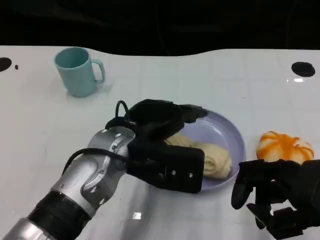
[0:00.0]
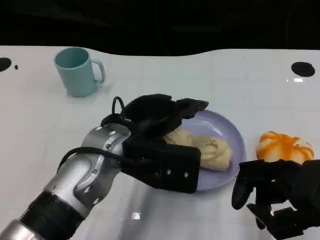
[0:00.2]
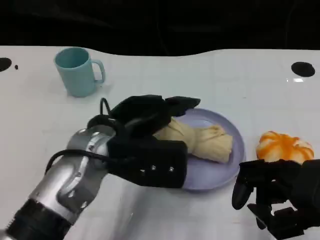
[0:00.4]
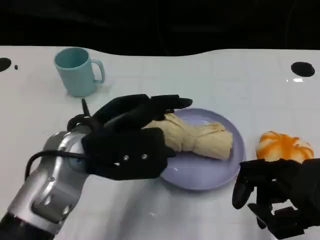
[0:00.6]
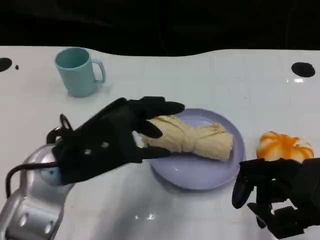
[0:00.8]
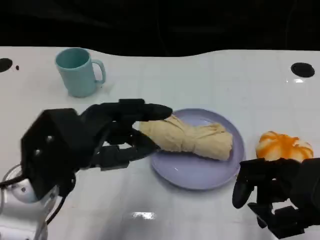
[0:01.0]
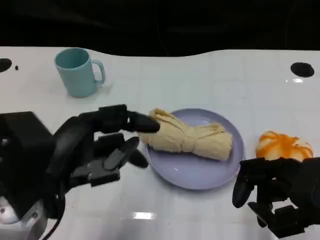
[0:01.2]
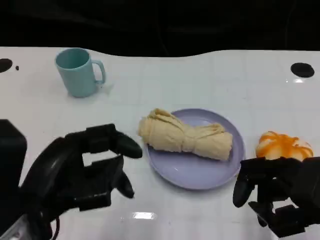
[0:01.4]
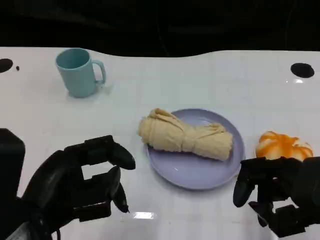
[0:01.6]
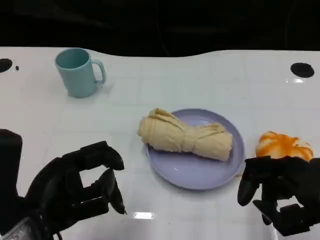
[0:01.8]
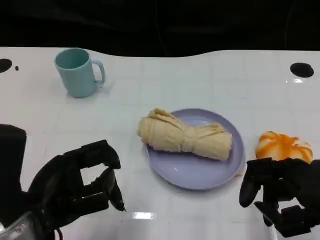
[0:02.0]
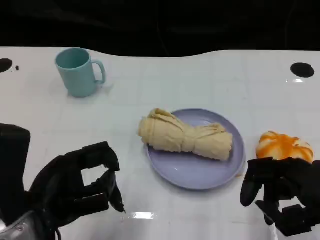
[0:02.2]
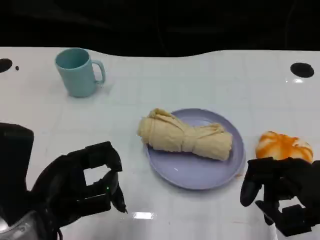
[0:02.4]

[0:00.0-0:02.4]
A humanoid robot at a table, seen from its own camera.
Task of the whole recording: Grasp the towel on the left side of the plate with the left hand and place it into the plate.
0:00.0 to 0:01.2: The left hand shifts some 15 cm to the left and backward.

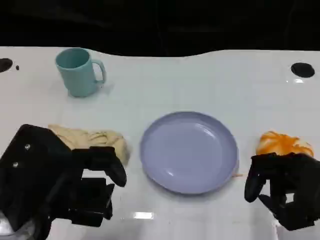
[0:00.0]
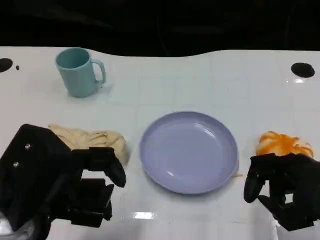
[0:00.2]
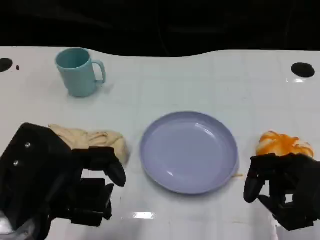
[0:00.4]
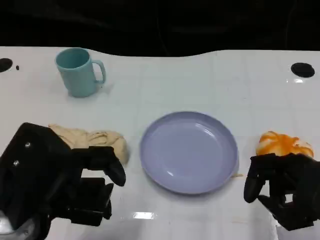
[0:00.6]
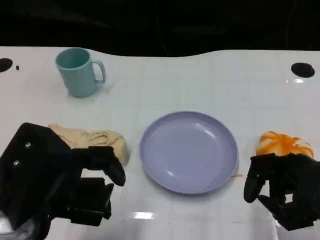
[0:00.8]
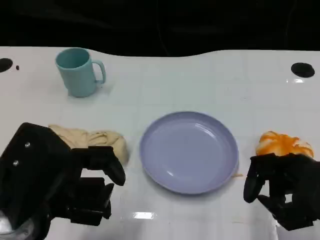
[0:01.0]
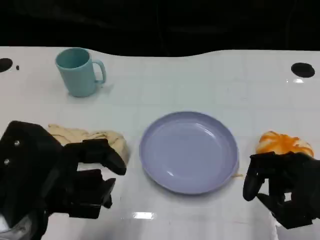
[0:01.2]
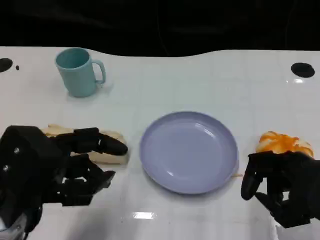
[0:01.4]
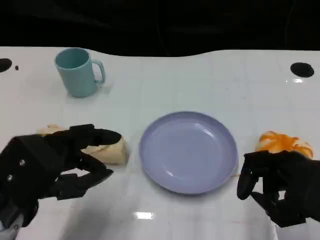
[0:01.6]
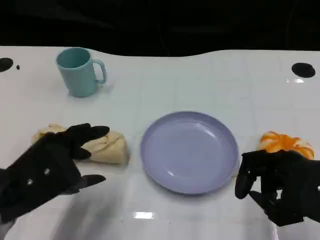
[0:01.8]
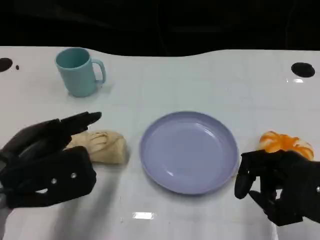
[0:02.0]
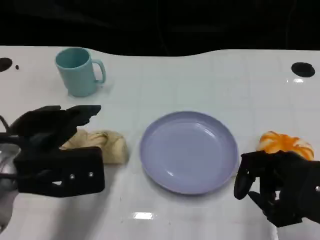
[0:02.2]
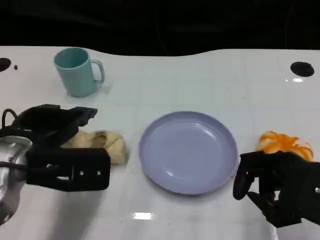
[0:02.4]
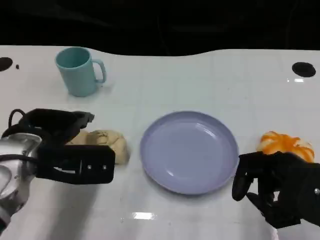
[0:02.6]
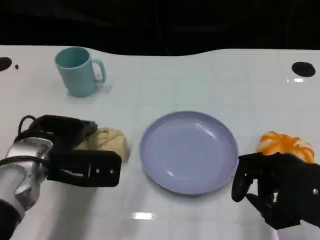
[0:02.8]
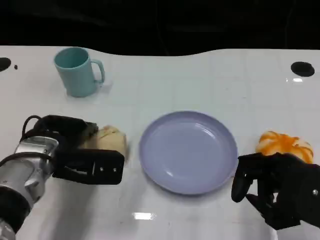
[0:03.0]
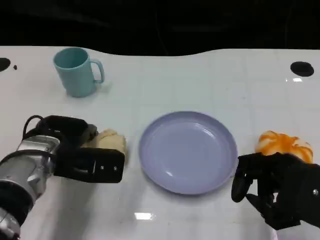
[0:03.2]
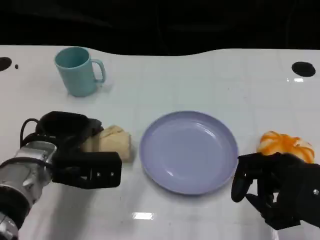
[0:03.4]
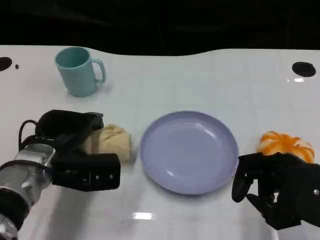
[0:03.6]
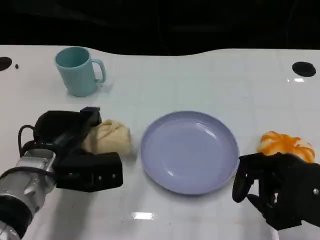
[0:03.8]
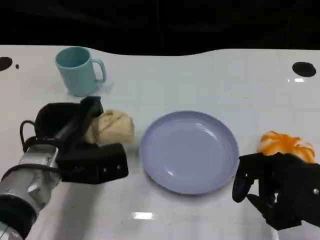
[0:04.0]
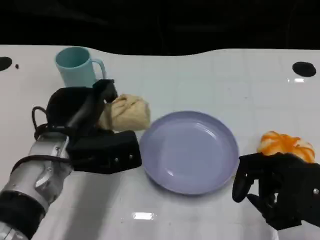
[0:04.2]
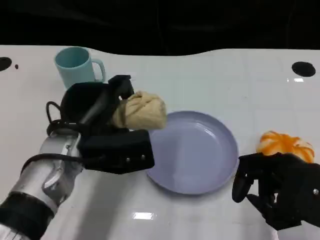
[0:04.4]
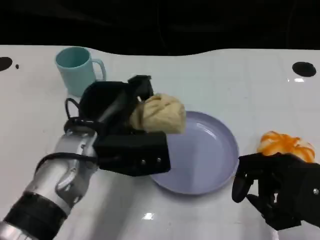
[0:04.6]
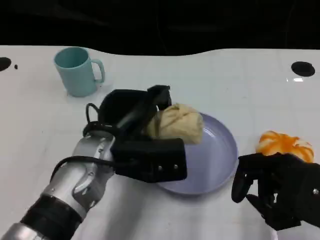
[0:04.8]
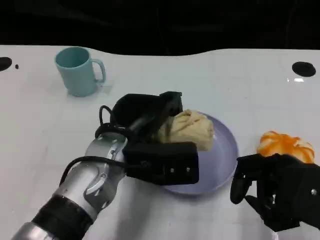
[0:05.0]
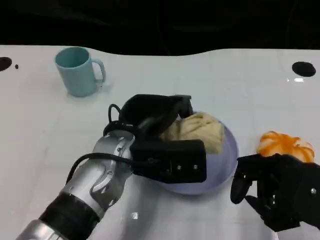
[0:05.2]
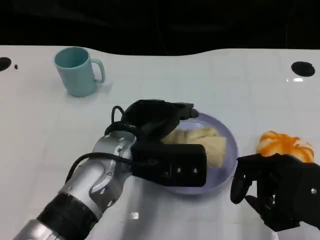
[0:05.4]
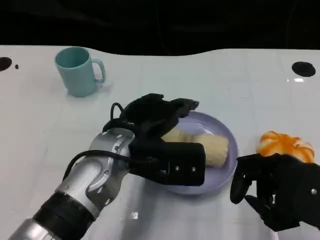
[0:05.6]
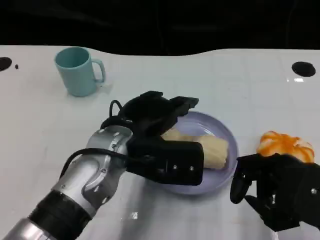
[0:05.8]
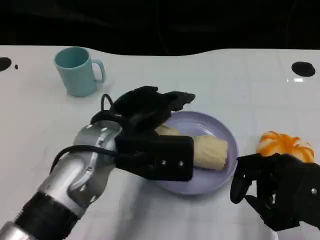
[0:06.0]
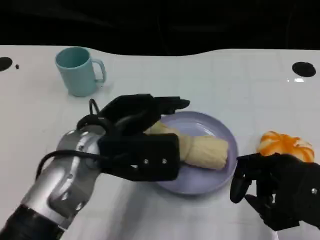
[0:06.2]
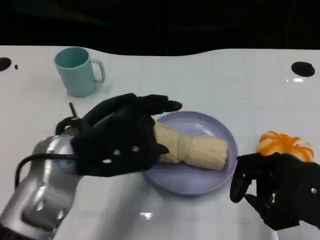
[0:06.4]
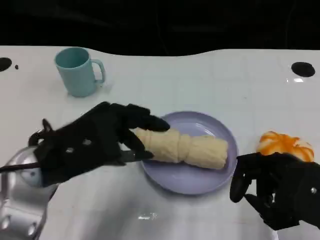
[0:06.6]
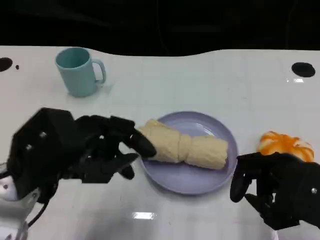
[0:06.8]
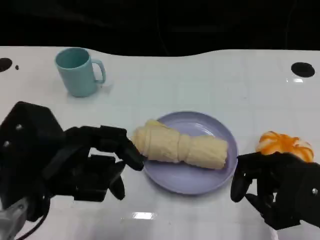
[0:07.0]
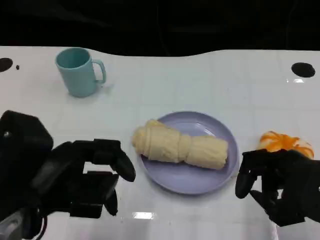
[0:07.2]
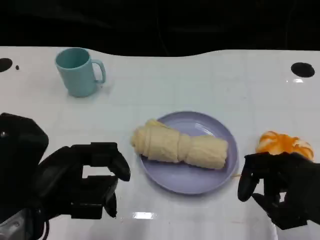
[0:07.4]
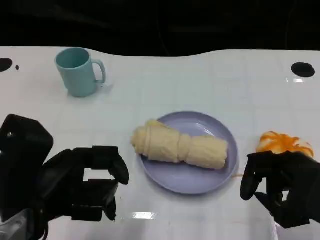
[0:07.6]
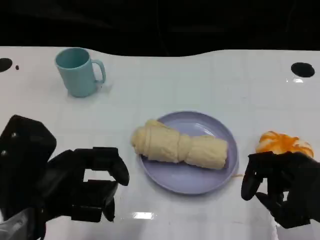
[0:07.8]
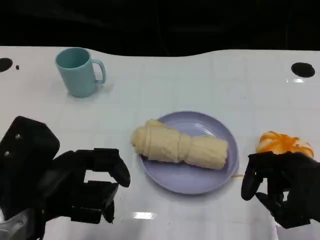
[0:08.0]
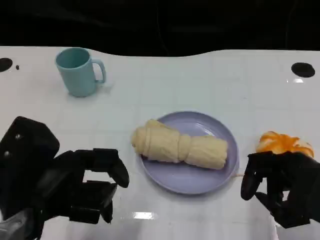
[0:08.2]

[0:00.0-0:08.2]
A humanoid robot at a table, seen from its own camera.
Task of the whole recording: Grasp the towel on the left side of the plate with the left hand and place it into the plate.
0:01.6 to 0:03.2: The left hand goes some 15 cm forward and downward.
0:03.2 to 0:05.0: The left hand goes about 10 cm to the right.
0:05.0 to 0:06.6: The left hand goes some 10 cm to the left.
0:06.6 to 0:08.2: The left hand changes place by approximately 5 cm.

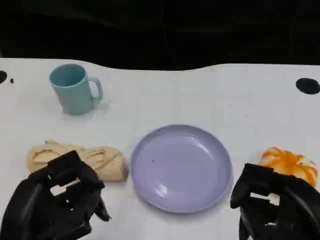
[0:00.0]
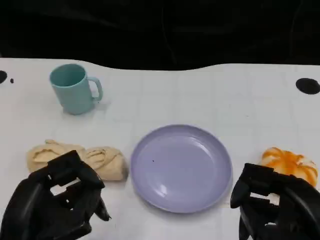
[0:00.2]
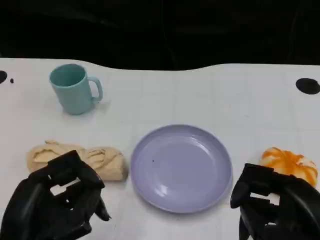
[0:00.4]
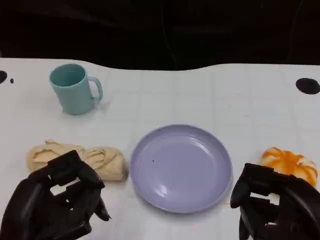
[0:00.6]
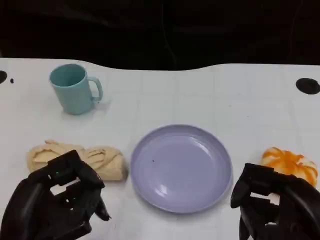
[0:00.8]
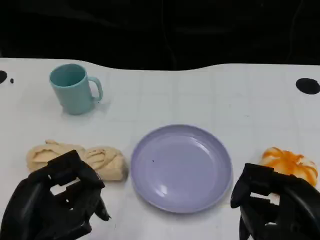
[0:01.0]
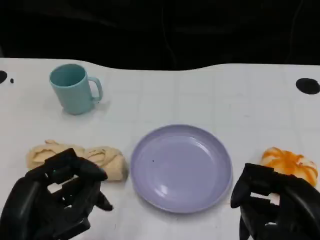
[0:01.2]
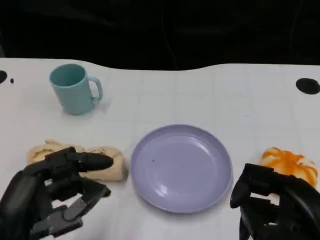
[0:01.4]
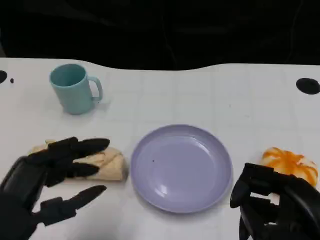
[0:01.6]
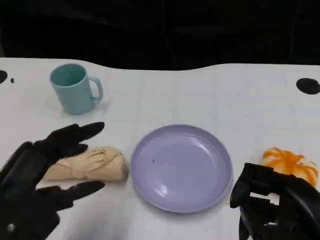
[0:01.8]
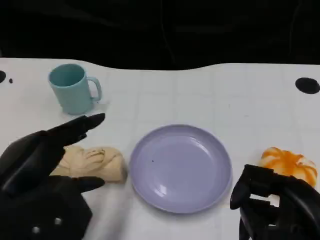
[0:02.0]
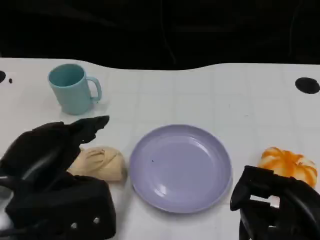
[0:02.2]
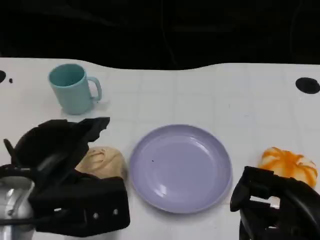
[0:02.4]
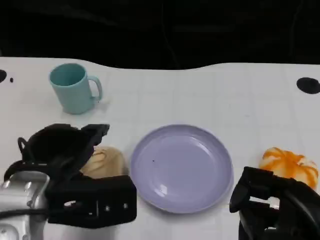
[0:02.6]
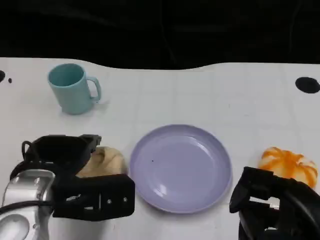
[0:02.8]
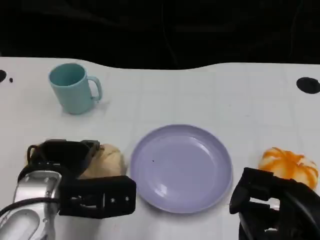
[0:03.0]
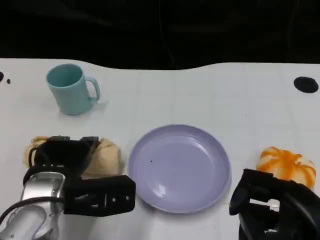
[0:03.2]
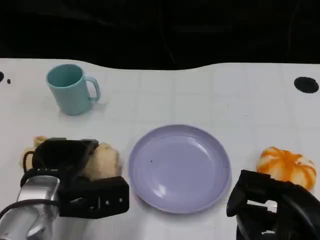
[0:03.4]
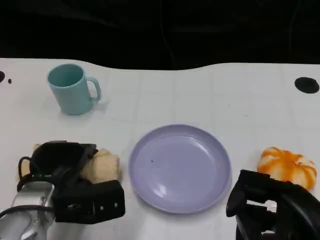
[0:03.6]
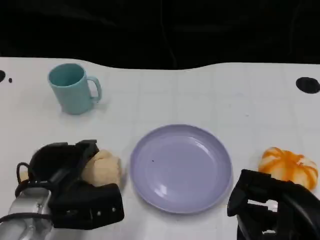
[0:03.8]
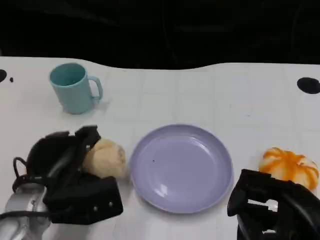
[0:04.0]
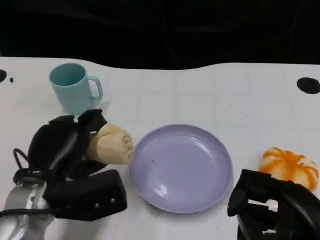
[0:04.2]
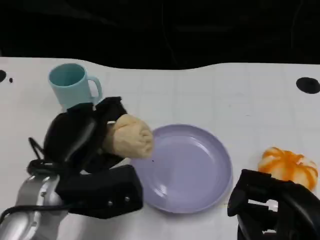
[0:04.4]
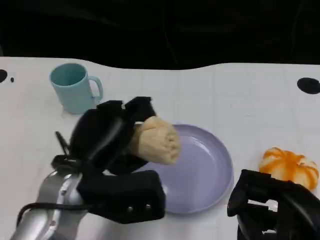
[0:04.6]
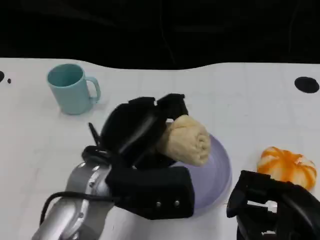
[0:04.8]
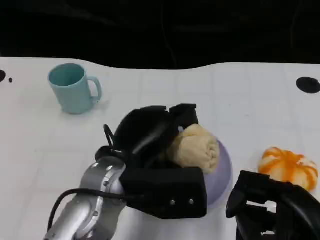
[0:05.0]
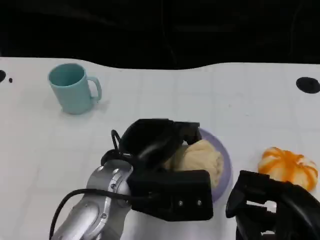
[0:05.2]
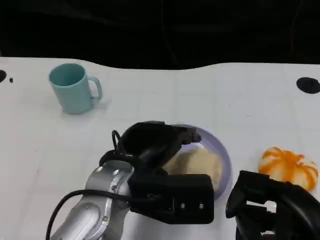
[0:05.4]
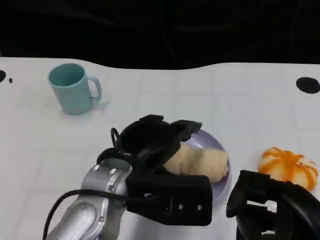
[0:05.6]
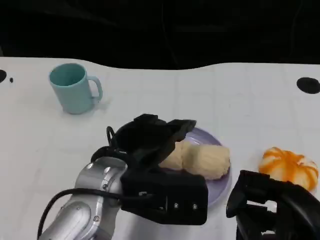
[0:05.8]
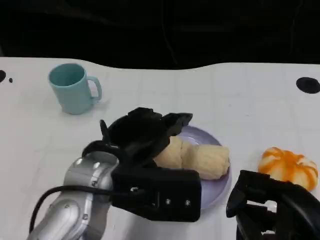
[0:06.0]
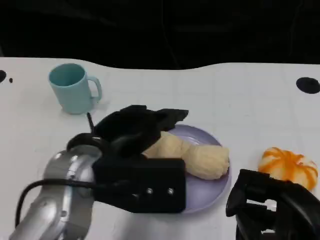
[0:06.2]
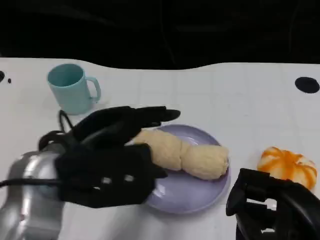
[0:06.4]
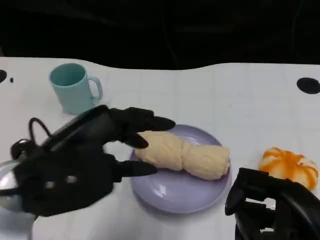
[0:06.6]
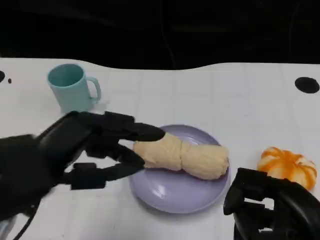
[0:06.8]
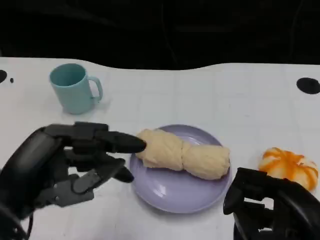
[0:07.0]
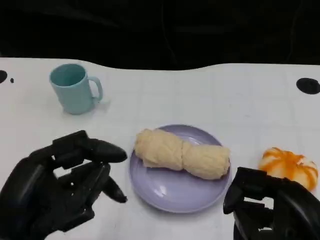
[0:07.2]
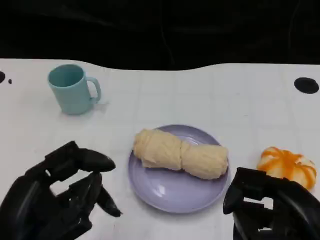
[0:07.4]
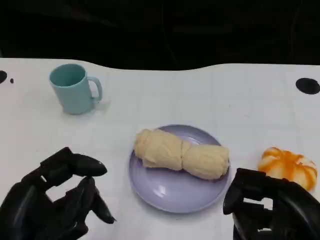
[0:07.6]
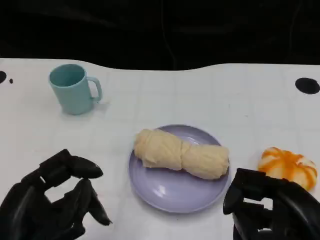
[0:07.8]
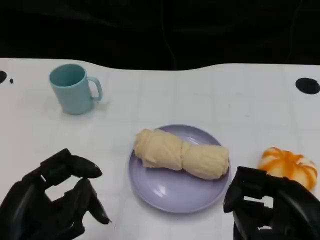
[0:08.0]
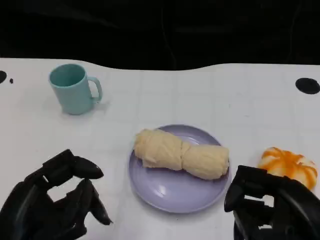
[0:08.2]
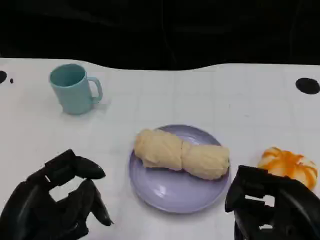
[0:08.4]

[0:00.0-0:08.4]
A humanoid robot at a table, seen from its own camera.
Task of the whole recording: Grasp the towel on the left side of the plate with the left hand and place it into the plate.
0:01.4 to 0:02.8: The left hand shifts about 10 cm forward.
0:04.2 to 0:05.6: The left hand goes approximately 10 cm to the right and upward.
0:05.6 to 0:07.0: The left hand travels to the left and backward by some 15 cm.
0:07.0 to 0:08.4: The left hand shifts by roughly 5 cm.

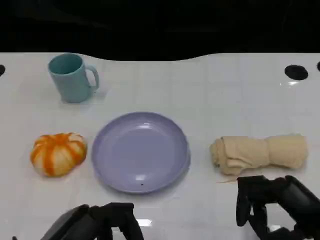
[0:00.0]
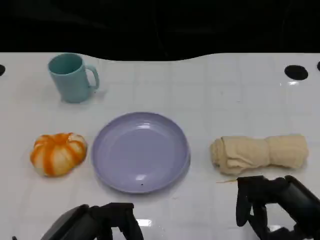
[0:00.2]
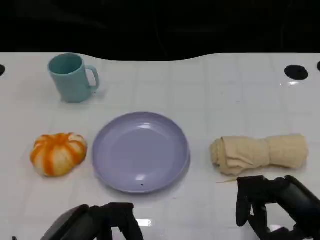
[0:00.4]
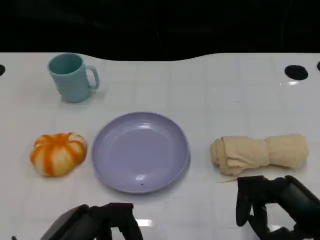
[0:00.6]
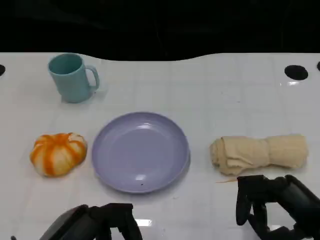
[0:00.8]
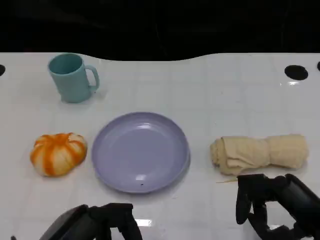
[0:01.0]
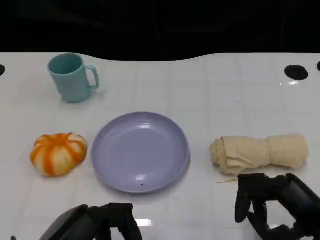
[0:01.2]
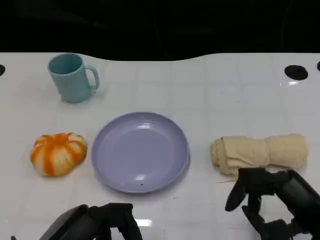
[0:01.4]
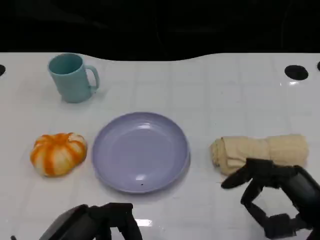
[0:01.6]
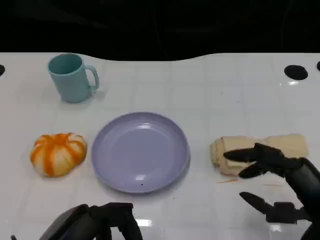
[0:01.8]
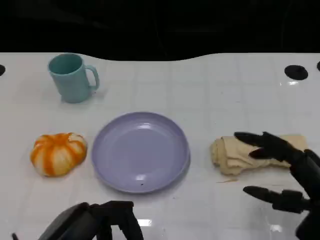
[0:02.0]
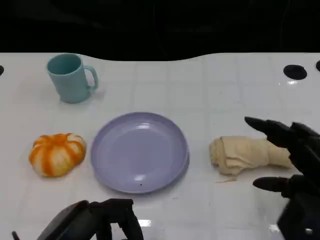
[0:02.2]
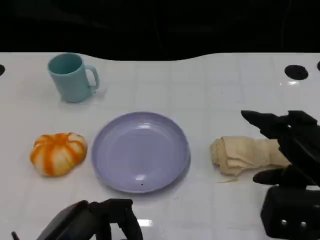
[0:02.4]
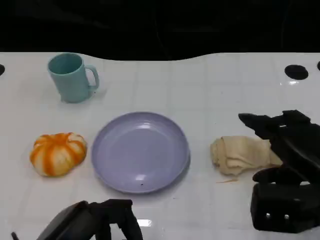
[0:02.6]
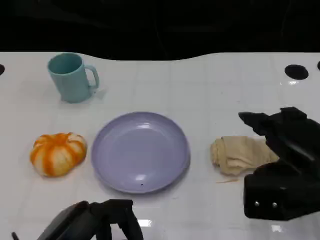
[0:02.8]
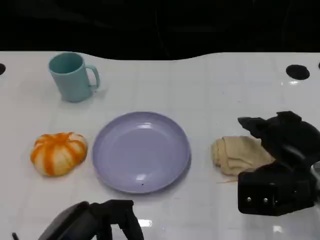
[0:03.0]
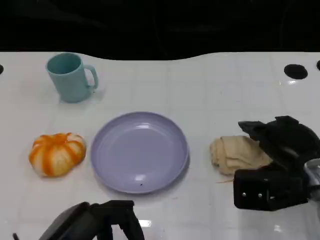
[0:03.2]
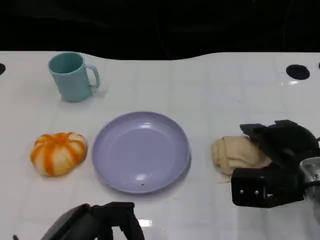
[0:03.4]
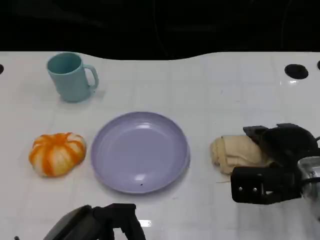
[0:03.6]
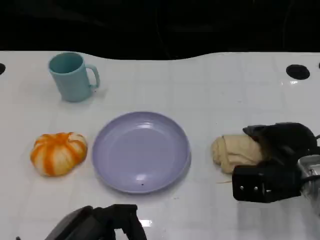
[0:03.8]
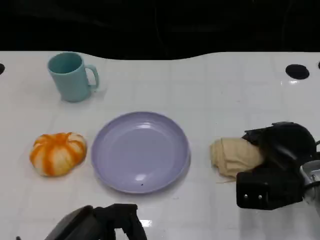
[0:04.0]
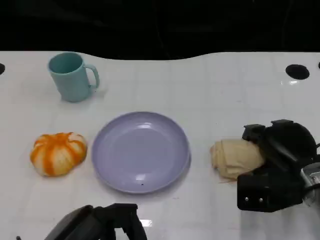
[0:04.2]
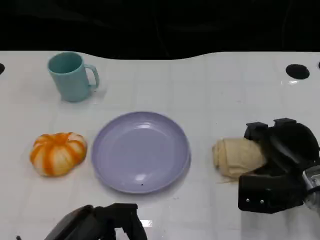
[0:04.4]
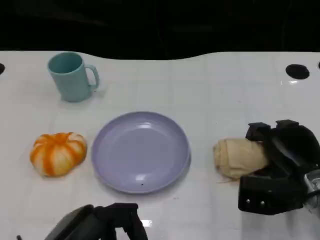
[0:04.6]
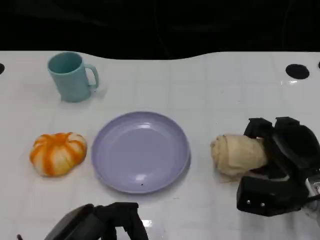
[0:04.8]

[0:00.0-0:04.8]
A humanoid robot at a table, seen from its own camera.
Task of the whole recording: Grasp the towel on the left side of the plate with the left hand and place it into the plate.
0:00.0 to 0:01.6: The hands make only small movements.
0:01.6 to 0:03.2: The right hand travels forward by roughly 10 cm.
0:03.2 to 0:04.8: The right hand is displaced downward by approximately 5 cm.
